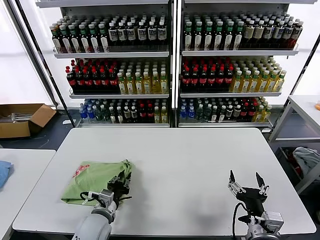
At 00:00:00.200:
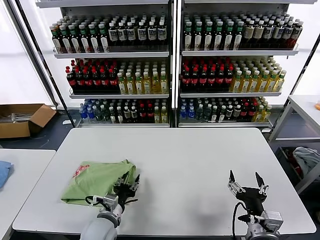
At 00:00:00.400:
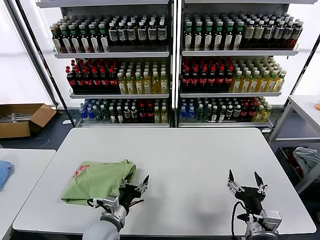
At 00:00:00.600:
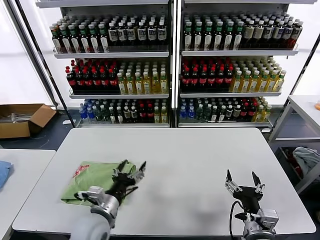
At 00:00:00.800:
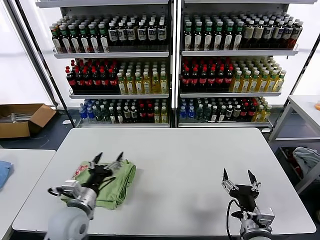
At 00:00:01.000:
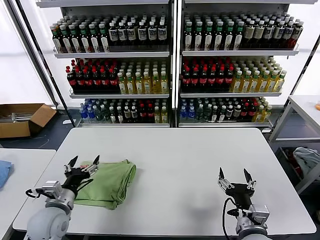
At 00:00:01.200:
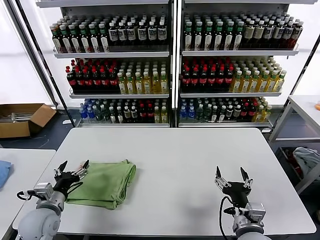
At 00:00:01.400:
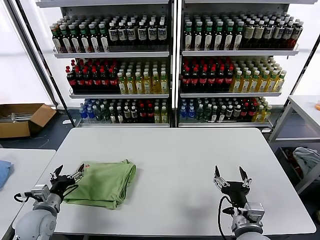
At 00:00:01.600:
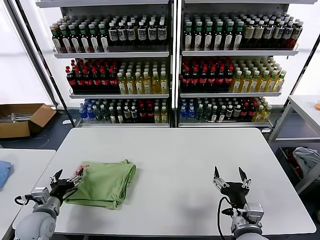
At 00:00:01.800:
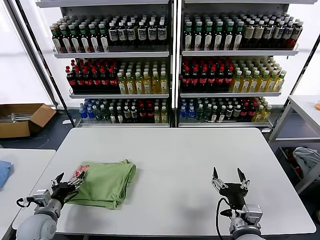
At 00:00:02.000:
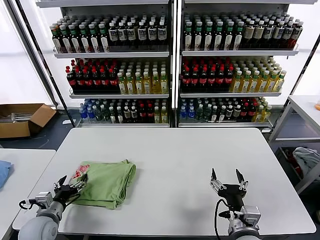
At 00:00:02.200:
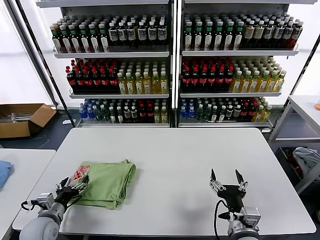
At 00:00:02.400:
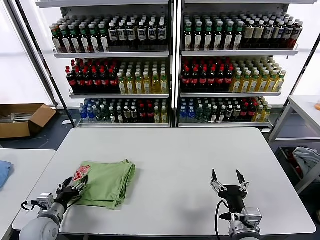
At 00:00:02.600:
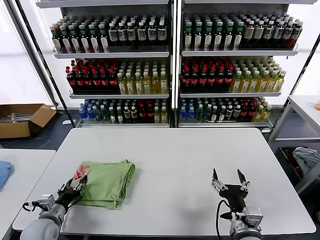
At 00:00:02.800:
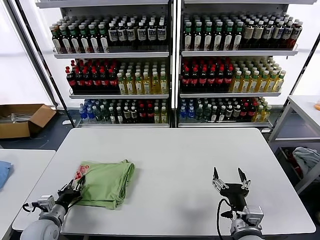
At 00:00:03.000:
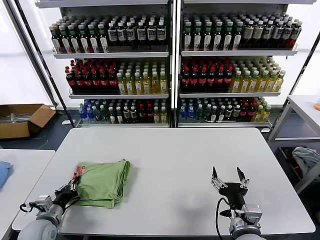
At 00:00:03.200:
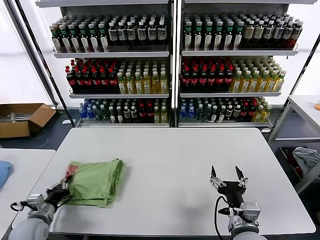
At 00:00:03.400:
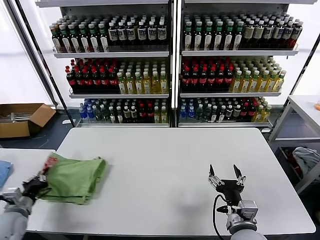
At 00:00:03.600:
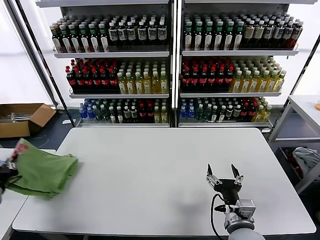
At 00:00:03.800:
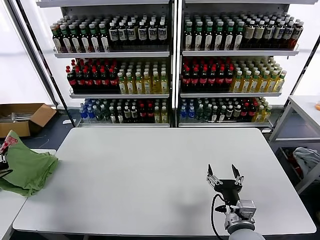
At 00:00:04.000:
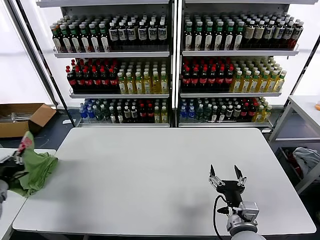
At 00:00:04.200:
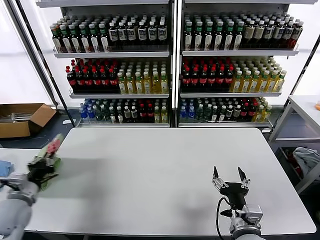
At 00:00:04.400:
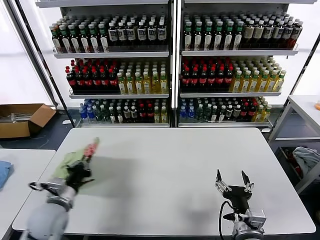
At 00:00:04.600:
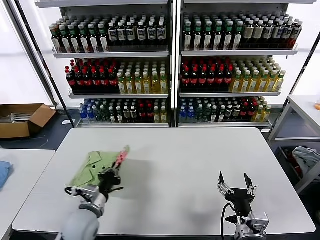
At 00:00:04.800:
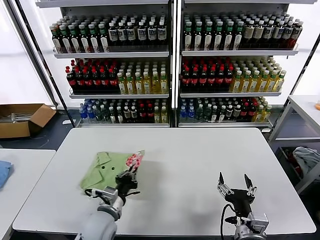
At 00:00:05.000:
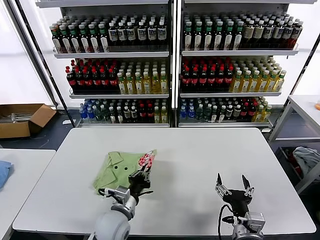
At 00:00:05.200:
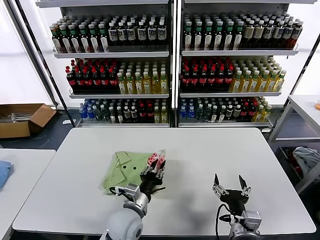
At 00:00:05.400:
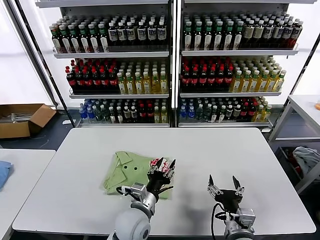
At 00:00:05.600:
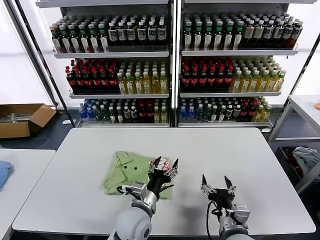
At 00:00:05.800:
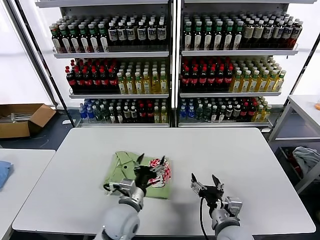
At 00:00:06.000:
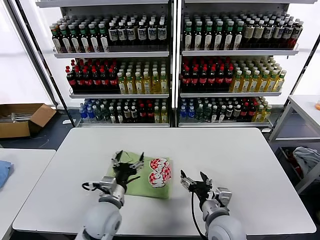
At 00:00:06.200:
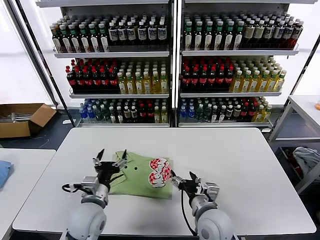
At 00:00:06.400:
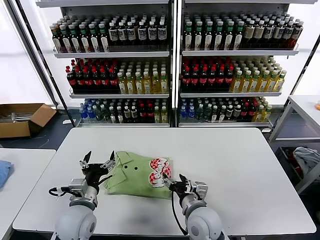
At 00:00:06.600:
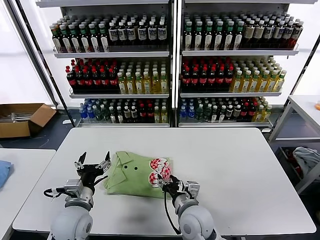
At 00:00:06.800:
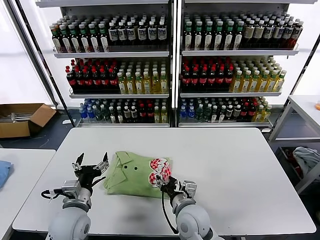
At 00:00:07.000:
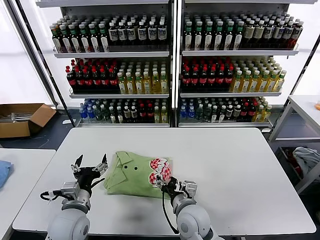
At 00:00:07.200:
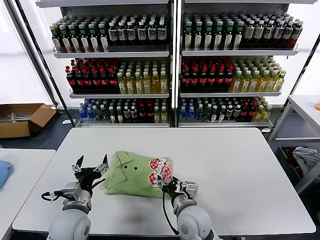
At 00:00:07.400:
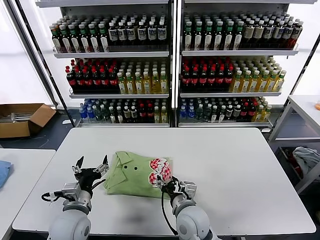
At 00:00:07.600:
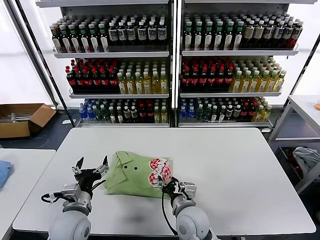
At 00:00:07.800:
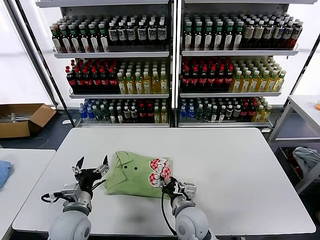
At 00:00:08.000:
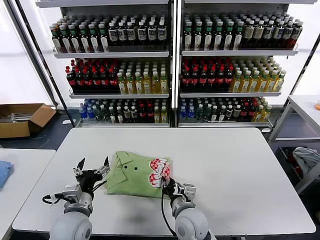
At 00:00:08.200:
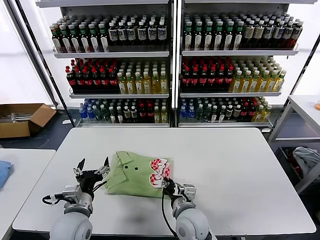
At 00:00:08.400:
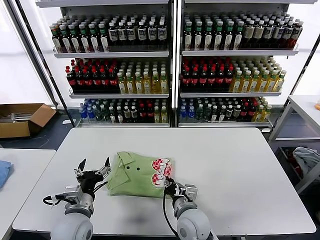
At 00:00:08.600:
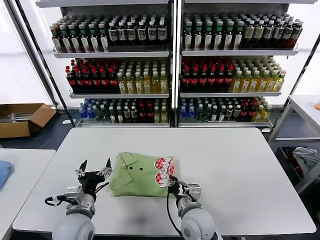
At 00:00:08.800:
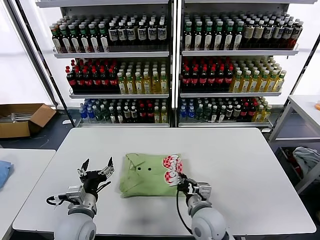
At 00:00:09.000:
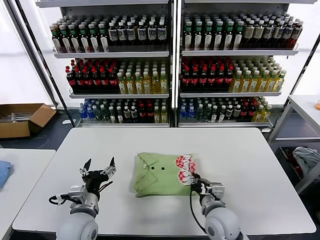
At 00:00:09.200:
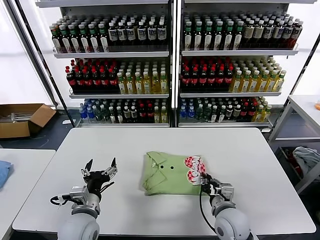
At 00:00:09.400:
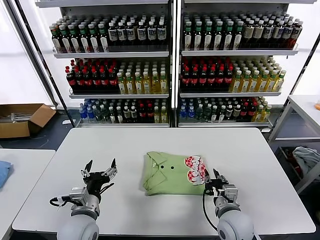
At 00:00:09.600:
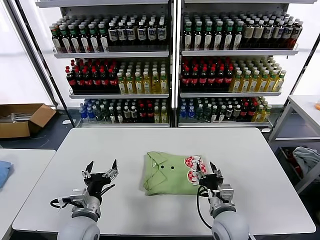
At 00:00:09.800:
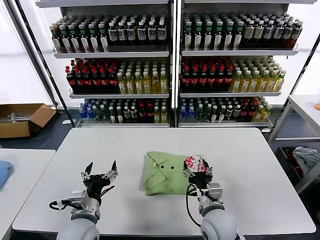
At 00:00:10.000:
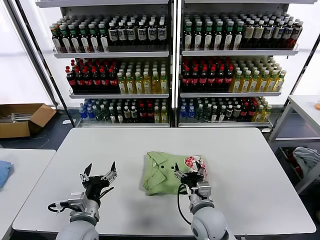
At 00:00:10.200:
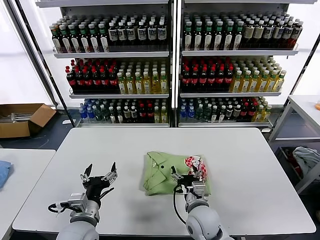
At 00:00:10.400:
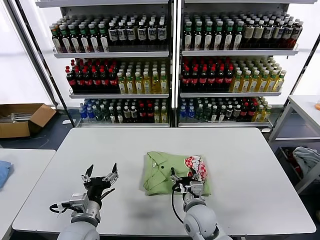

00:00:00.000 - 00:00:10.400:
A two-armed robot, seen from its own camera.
Task of the whole recording: fold and organize the clothes.
Step, 00:00:00.400 - 00:00:05.400: Flip the folded clothes over with left gripper.
00:00:00.000 - 00:00:01.400: The left gripper moves to the left, some 15 cm, and opens up.
00:00:01.400 - 00:00:03.000: The left gripper heads downward, covering some 5 cm, and closes its fingers.
00:00:03.000 - 00:00:04.400: The left gripper shifts about 10 cm upward, and reaches some 15 cm to the left, then returns.
00:00:04.400 - 00:00:06.000: The right gripper goes some 10 cm forward and to the left; the left gripper heads to the right, covering roughly 20 cm, and opens up.
00:00:06.000 - 00:00:07.400: Both grippers travel together to the left, approximately 10 cm.
00:00:07.400 - 00:00:09.000: The right gripper heads to the right, covering roughly 10 cm, and closes up.
00:00:09.000 - 00:00:10.400: The right gripper moves roughly 5 cm, and opens its fingers.

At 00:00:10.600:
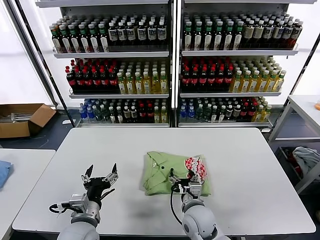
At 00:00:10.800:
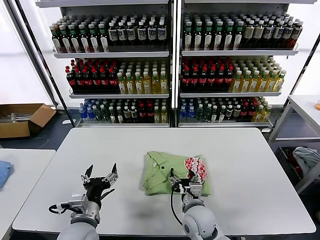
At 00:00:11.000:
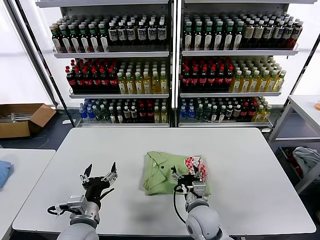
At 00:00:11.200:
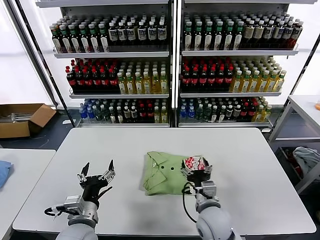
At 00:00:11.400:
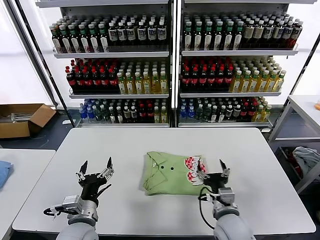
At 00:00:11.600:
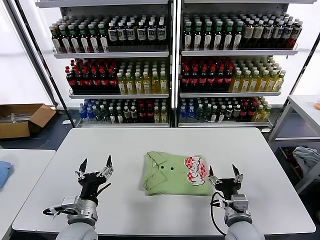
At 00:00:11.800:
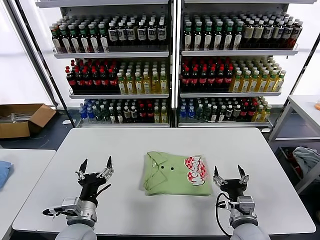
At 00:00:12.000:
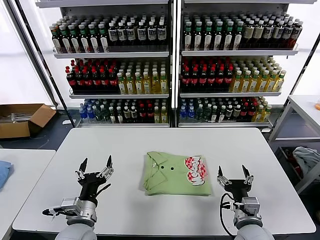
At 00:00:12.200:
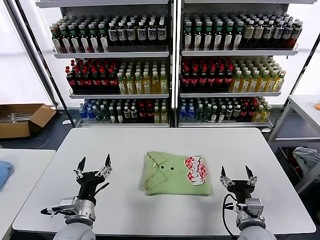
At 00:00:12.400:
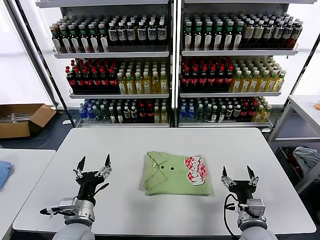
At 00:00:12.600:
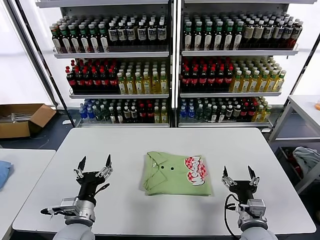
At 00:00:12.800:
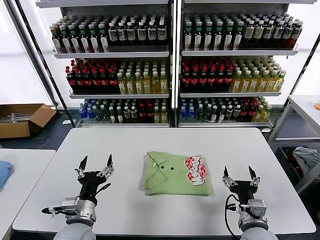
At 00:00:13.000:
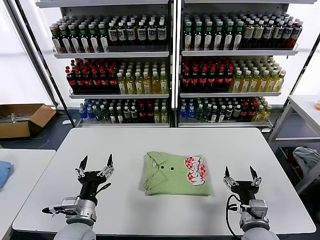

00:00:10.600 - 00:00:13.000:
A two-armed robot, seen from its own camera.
Task of the whole recording: fold and organize the clothes.
00:00:10.600 - 00:00:11.800: The right gripper travels to the right and backward by some 15 cm.
00:00:11.800 - 00:00:13.000: The grippers stay close to where they were, moving slightly.
